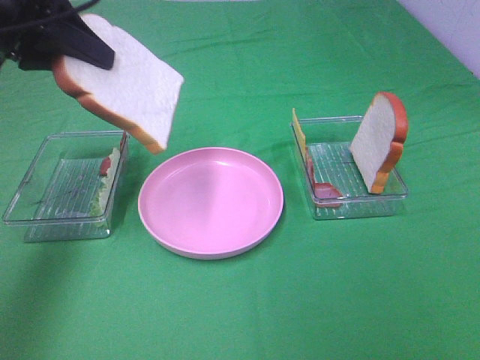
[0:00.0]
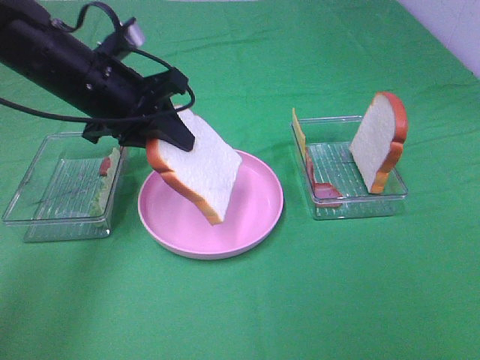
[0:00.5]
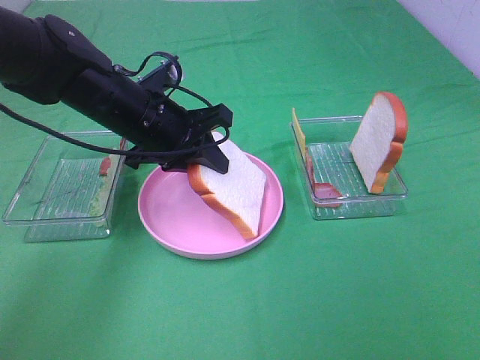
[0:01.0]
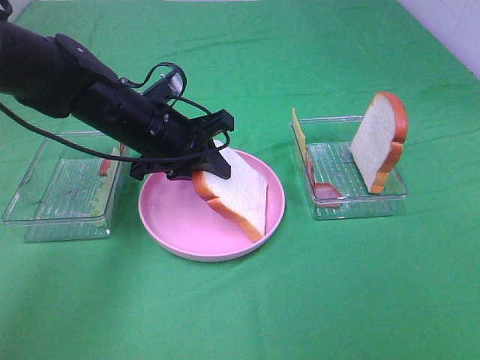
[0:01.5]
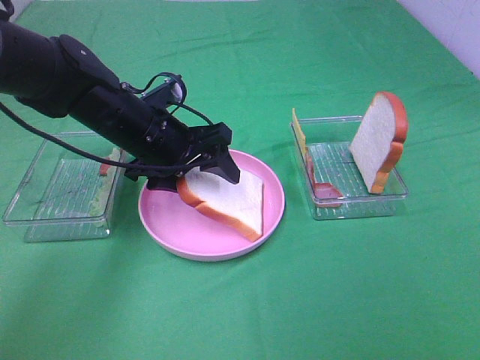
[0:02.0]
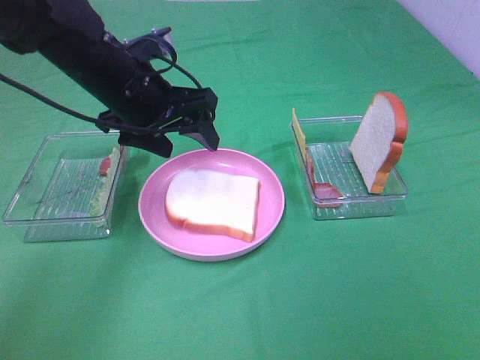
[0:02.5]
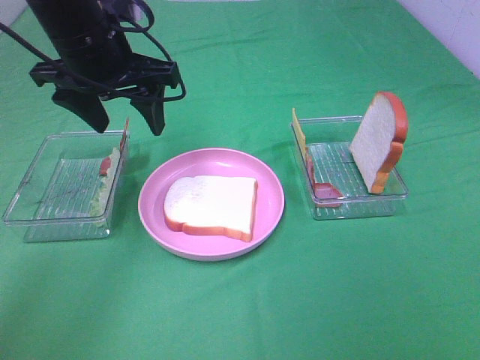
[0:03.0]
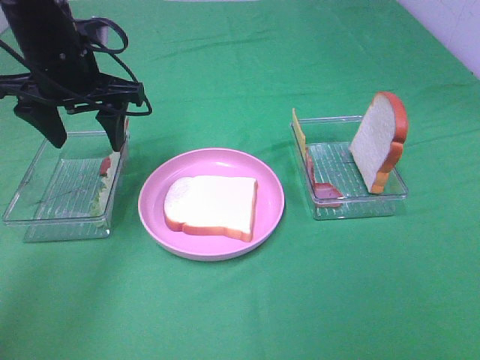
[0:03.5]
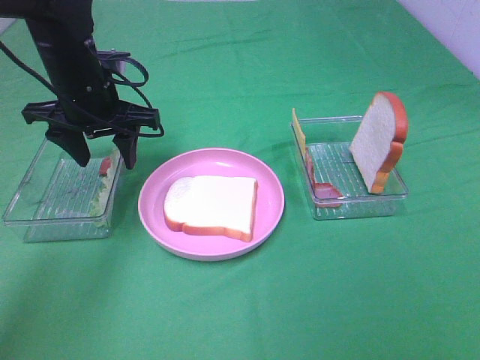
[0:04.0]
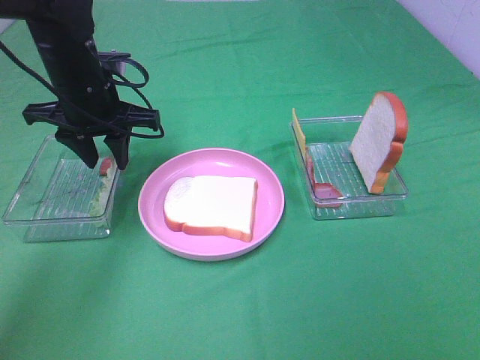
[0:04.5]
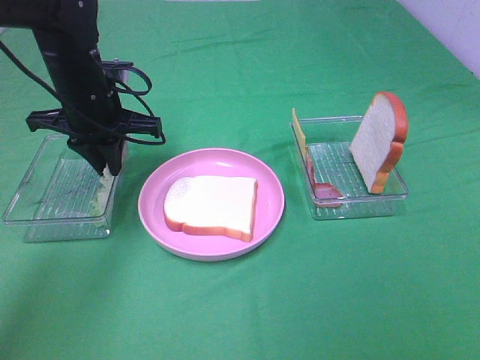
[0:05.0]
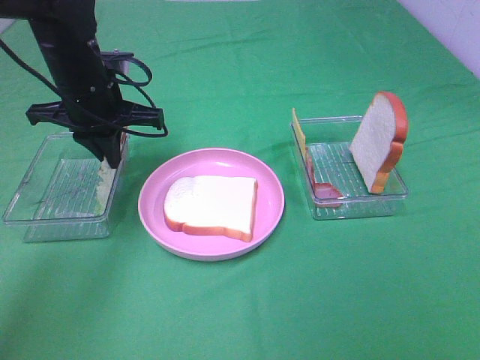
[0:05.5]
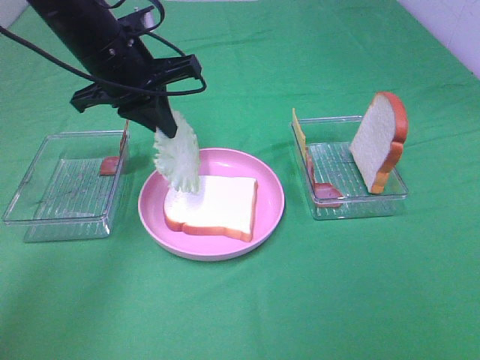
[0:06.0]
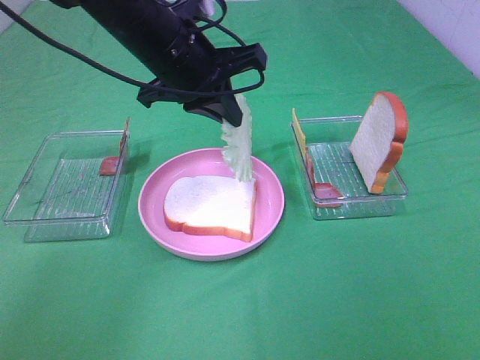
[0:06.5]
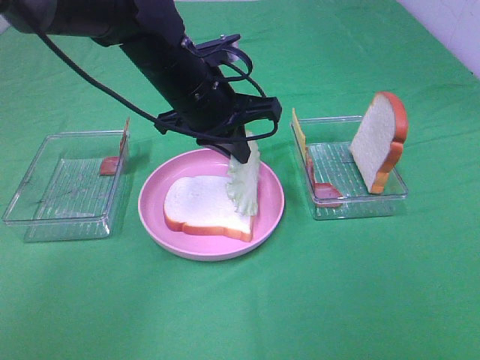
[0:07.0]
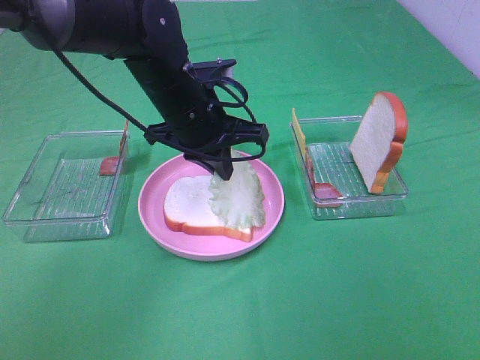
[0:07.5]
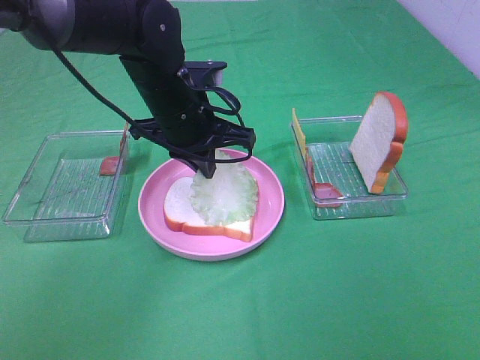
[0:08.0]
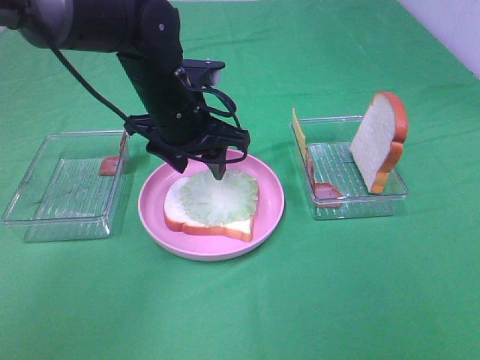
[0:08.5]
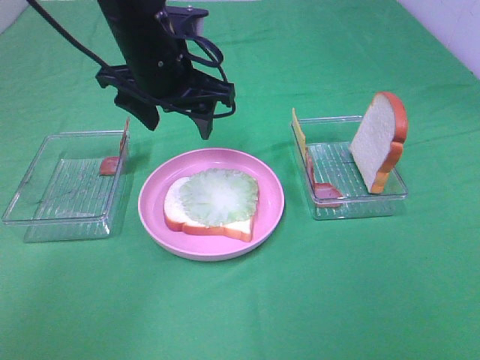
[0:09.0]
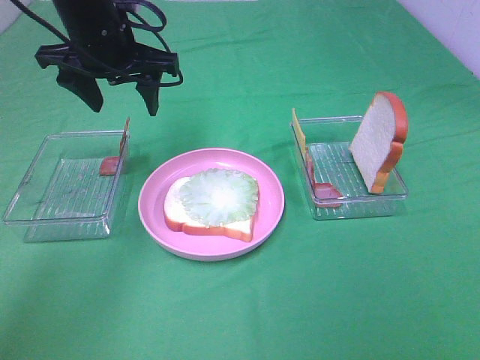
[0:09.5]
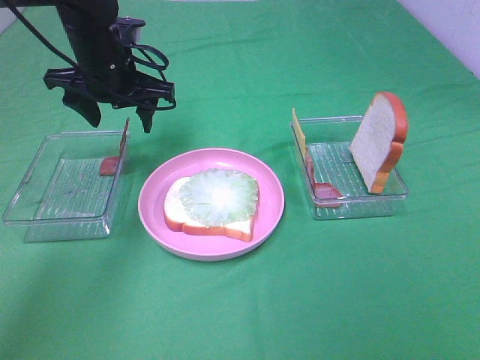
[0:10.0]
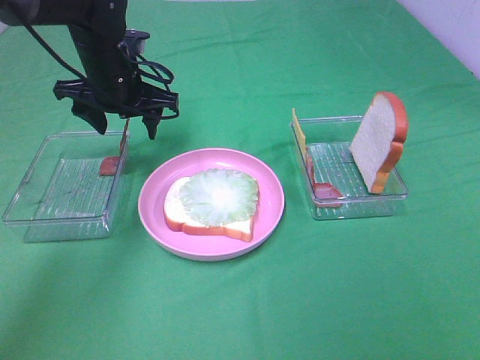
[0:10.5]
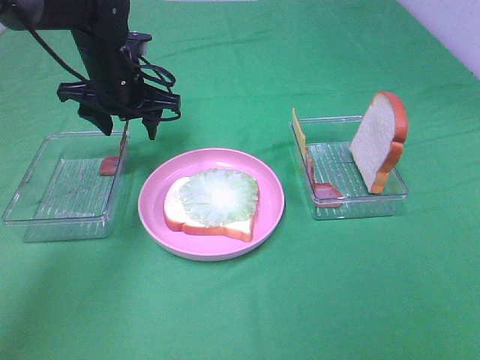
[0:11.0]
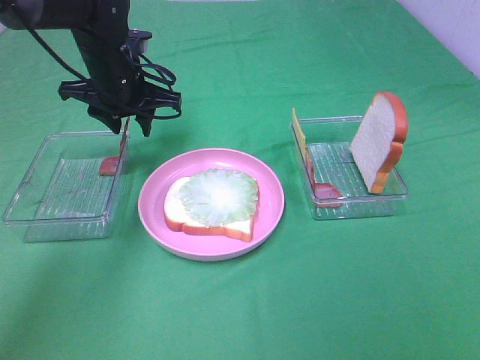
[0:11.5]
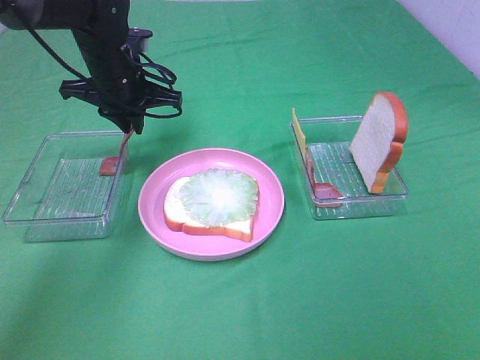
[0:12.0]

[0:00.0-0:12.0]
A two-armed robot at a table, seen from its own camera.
Task of the whole recording: Make sandwiches.
Step, 0.0 to 2.5 s: Left hand:place the bread slice on the plate.
Step, 3.0 to 5.0 s: Left hand:grab the lettuce slice.
Step, 5.5 to 8.5 s: Left hand:place the lettuce slice on the bread slice.
0.0 to 2.0 s: The left gripper shifts some 20 cm downward and to the right, and opens its fingers.
2.0 to 4.0 s: The left gripper is displaced to the left by roughly 5 cm.
4.0 to 6.0 s: The left gripper ends up some 5 cm from where it was, and closes its fingers.
6.0 to 8.0 s: The left gripper goes about 10 cm to the right and downward.
8.0 to 10.0 s: The left gripper heads to the left and forward, covering about 10 cm, and opens.
10.0 to 12.0 s: The left gripper closes.

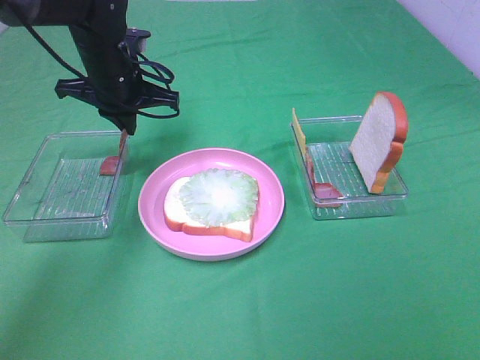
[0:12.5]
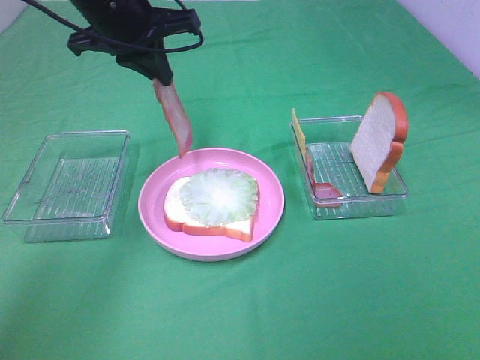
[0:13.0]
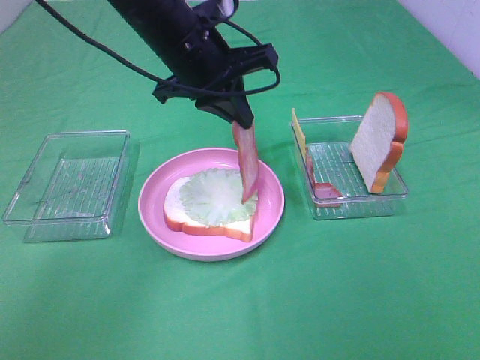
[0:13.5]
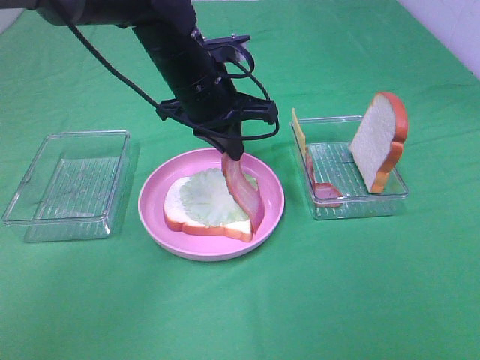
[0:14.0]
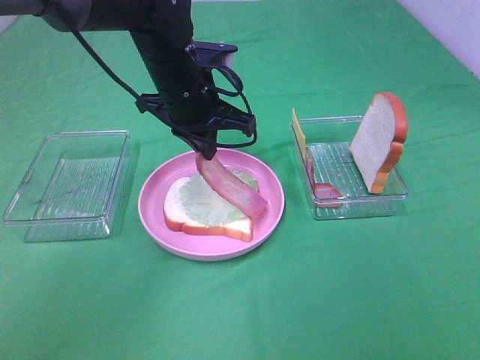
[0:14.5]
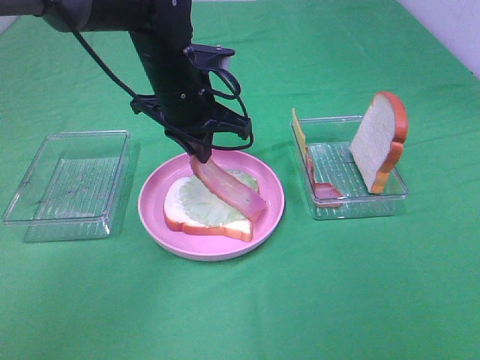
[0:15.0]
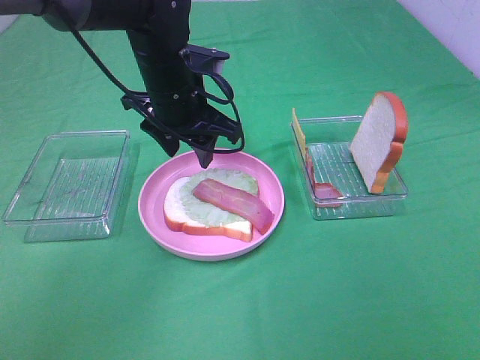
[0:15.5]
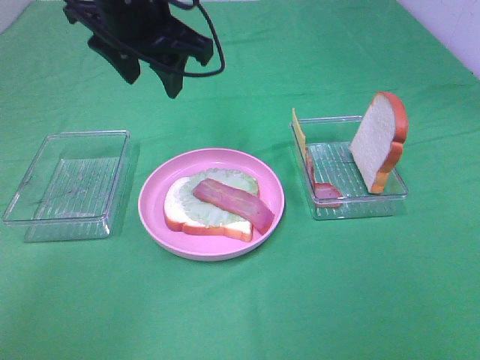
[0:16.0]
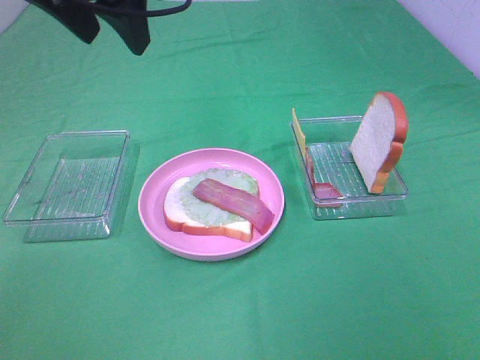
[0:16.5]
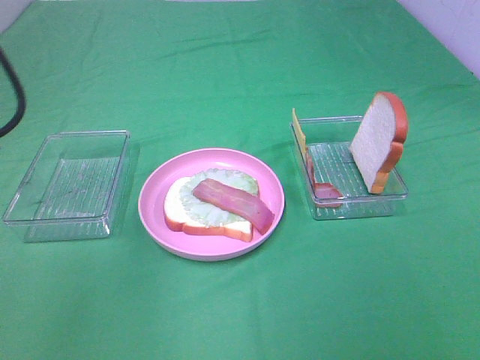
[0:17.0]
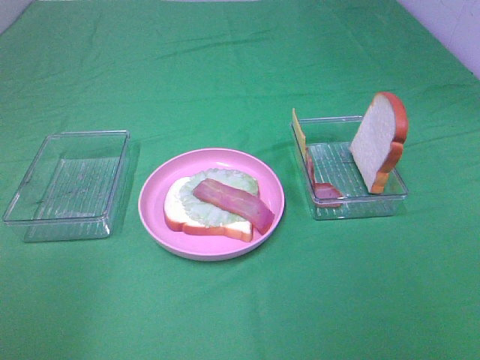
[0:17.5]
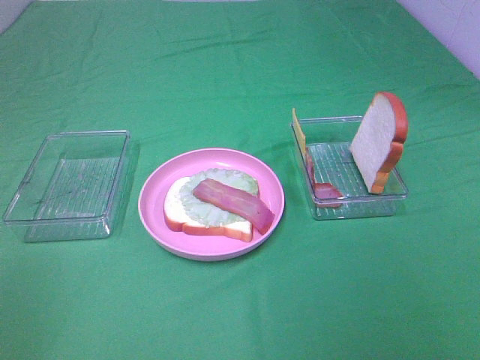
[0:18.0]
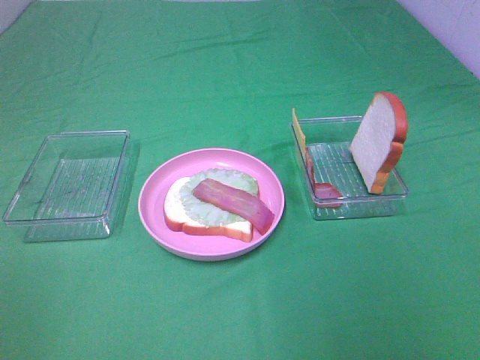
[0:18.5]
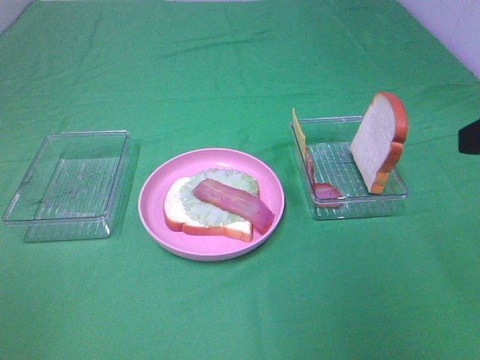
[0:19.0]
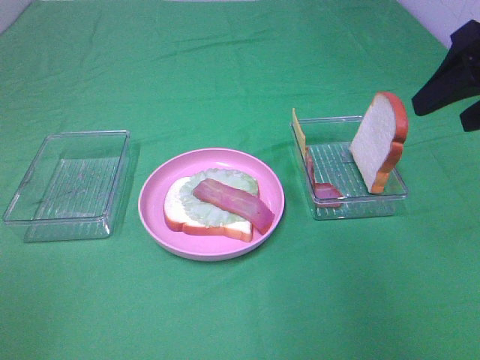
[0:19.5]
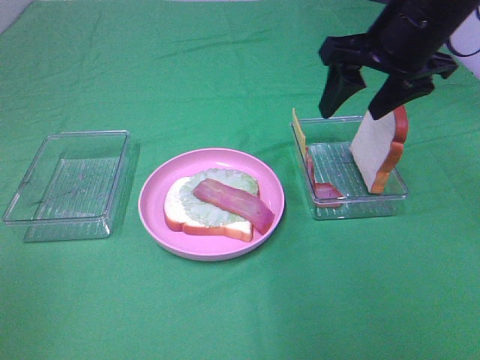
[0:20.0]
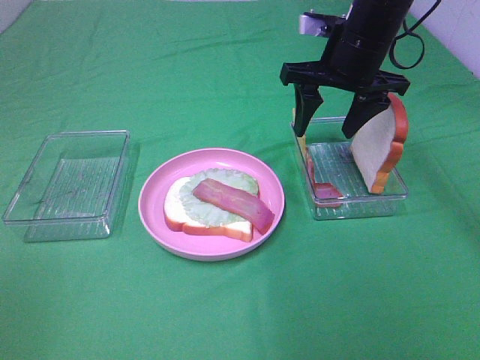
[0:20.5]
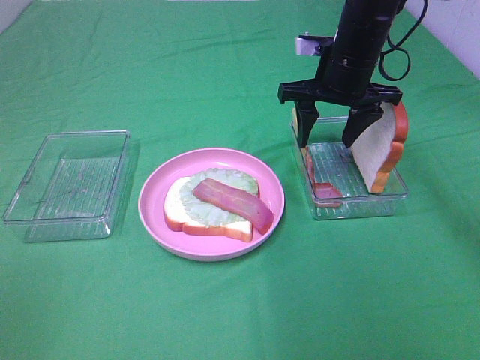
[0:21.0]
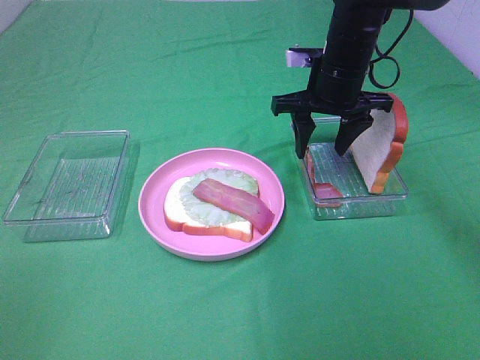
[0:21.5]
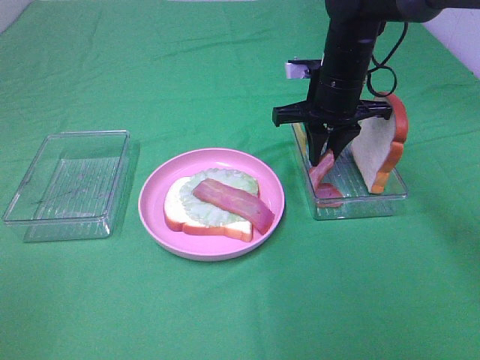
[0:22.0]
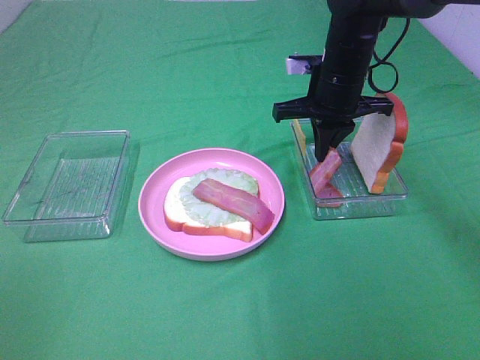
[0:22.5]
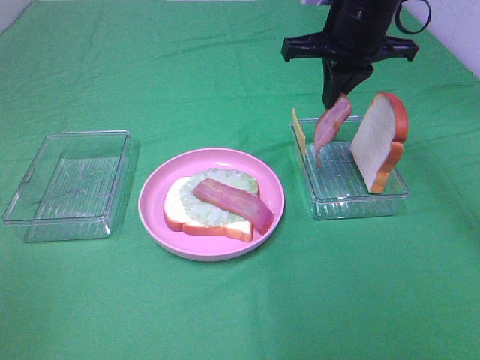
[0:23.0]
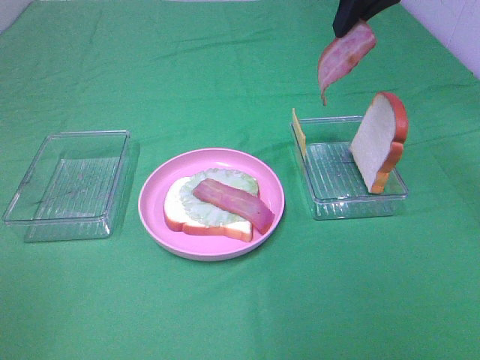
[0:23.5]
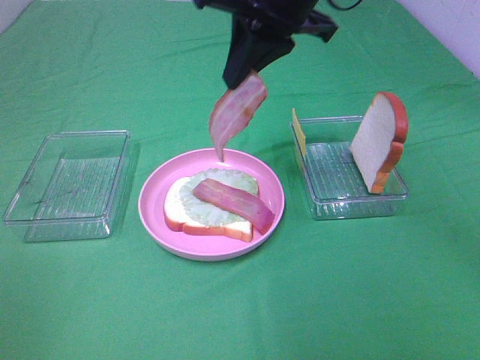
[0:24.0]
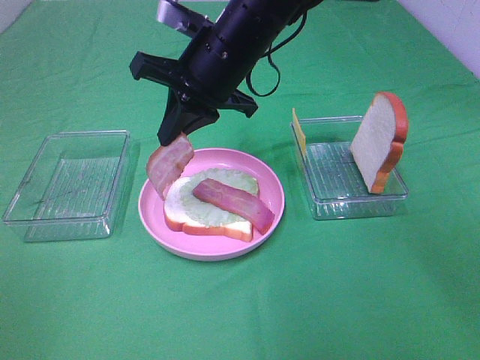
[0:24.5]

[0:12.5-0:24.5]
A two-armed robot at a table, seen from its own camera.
Task of the whole recording: Make sandwiches.
Step, 12.5 to 15.0 s: Left hand:place bacon on lettuce slice.
Step, 15.5 to 22.0 s: Right hand:grab the bacon.
12.5 to 14.5 s: The left gripper travels to the right and backward by about 10 cm.
14.5 to 16.5 s: The left gripper moves upward, backward and to the left, approximately 20 cm, and opens up.
16.5 to 18.5 s: The left gripper shifts about 35 cm backward and to the left.
18.5 to 20.5 s: The right gripper heads forward, covering approximately 35 cm.
20.5 to 22.5 s: The right gripper ends up about 5 cm from where it was, and closes up.
22.5 to 24.5 s: The right gripper is displaced to the left and backward by roughly 15 cm, and goes upward and returns, about 20 cm each way.

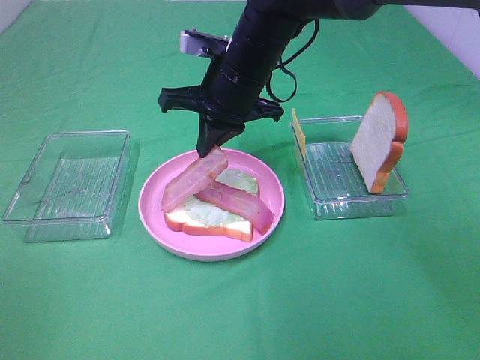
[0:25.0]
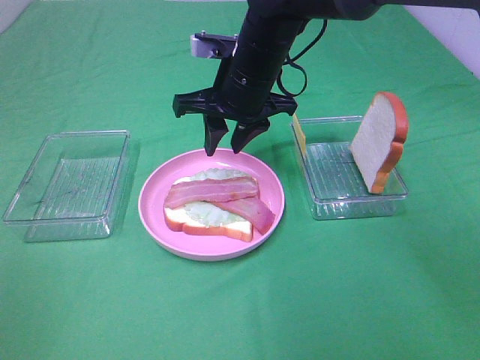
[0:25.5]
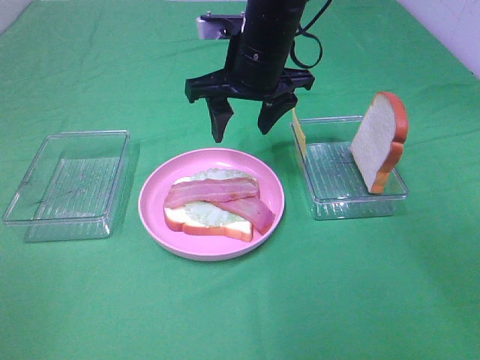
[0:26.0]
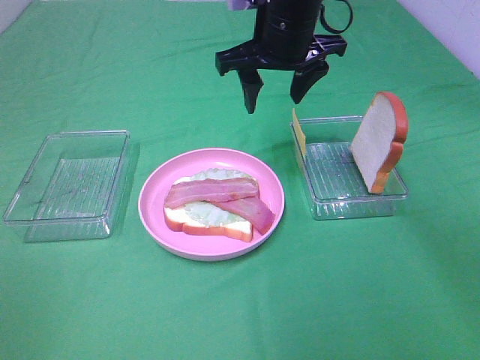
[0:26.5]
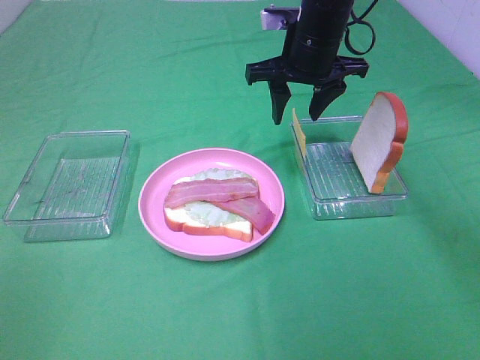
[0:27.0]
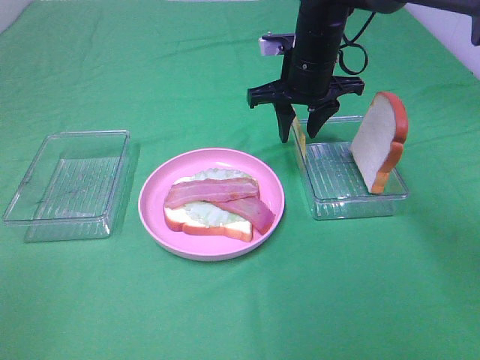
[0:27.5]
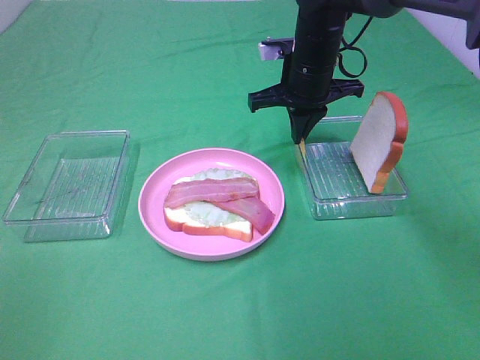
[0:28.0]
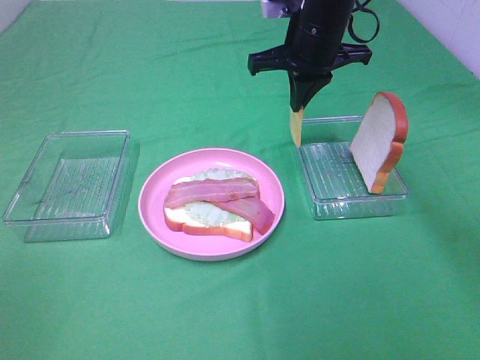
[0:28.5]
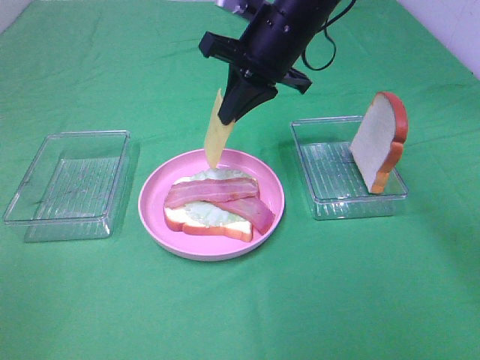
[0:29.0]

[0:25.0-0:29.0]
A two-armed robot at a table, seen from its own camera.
Task of the whole recording: Make sandwiches.
Step, 26.0 to 28.0 s: Right hand:grab the cheese slice.
25.0 to 27.0 s: The right gripper moves to the right and forward, roughly 10 cm, and opens its fingers.
27.0 to 29.0 s: The right gripper changes place by roughly 5 cm, and closes its fingers.
